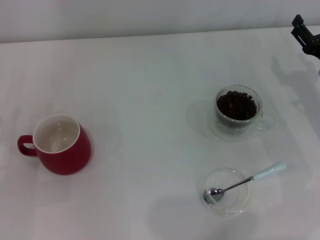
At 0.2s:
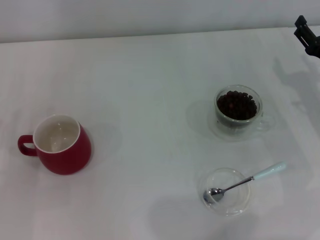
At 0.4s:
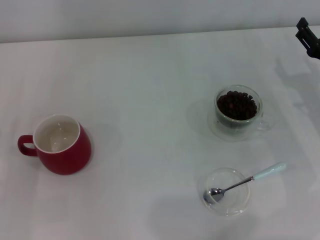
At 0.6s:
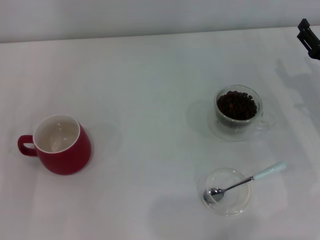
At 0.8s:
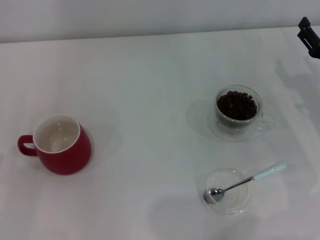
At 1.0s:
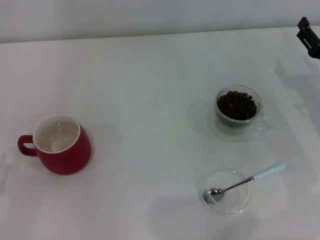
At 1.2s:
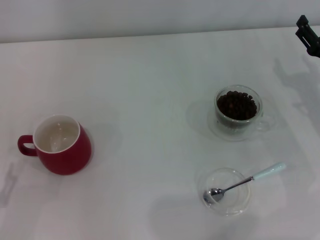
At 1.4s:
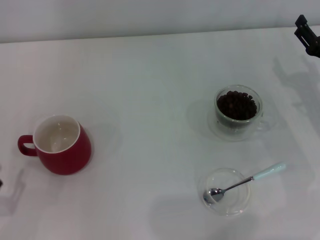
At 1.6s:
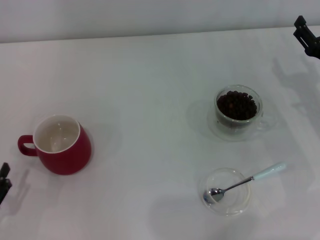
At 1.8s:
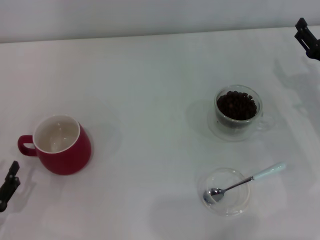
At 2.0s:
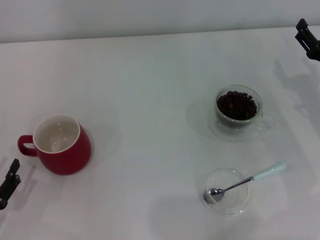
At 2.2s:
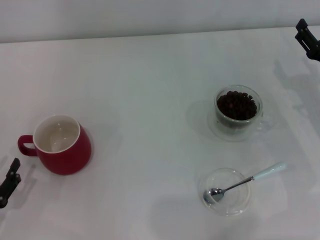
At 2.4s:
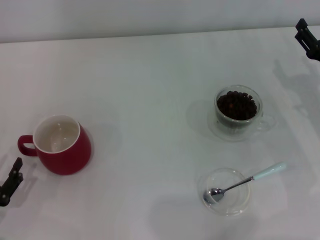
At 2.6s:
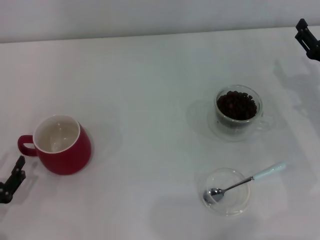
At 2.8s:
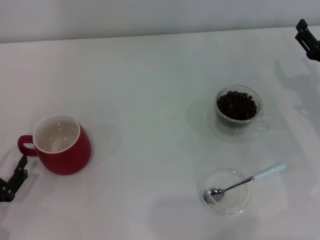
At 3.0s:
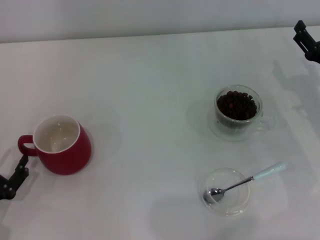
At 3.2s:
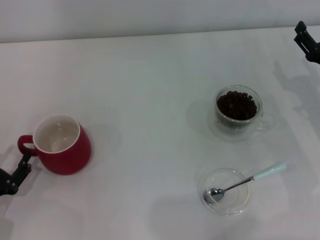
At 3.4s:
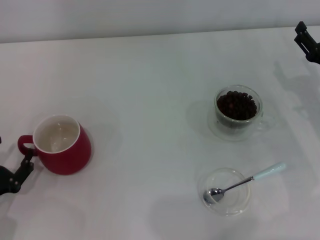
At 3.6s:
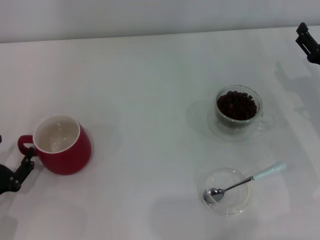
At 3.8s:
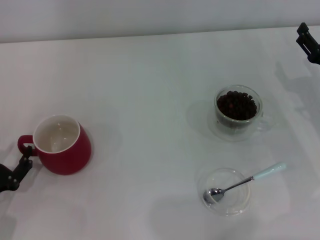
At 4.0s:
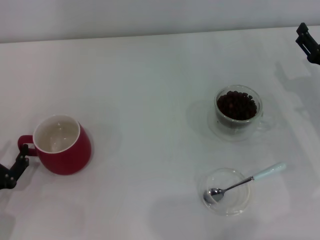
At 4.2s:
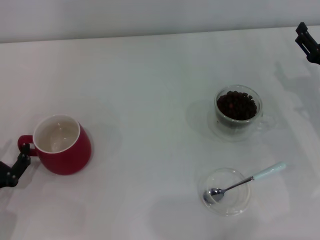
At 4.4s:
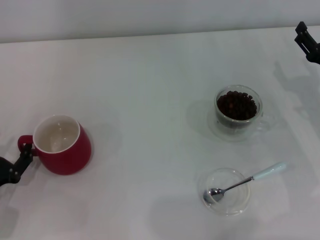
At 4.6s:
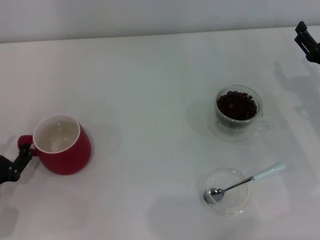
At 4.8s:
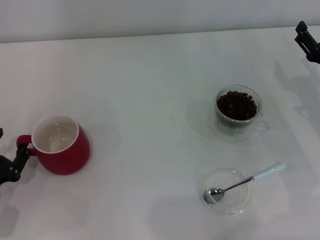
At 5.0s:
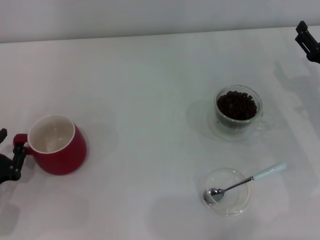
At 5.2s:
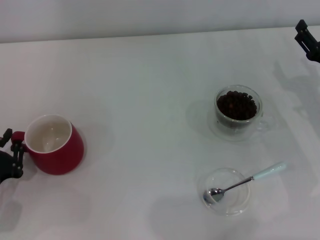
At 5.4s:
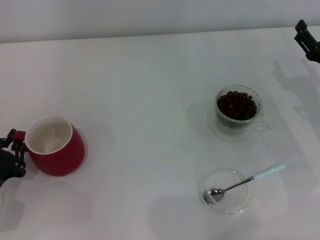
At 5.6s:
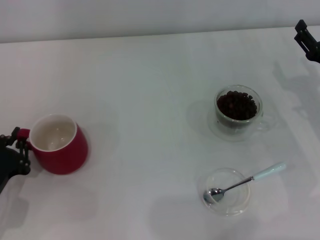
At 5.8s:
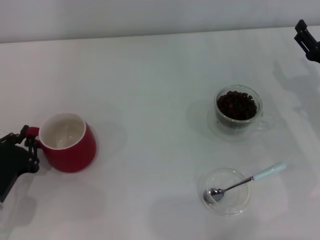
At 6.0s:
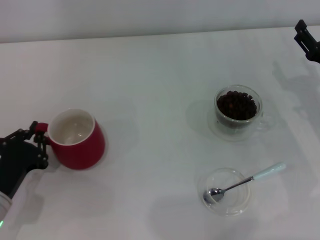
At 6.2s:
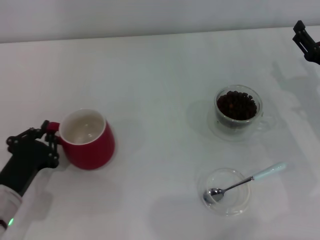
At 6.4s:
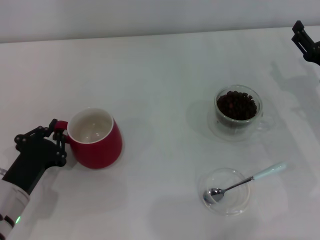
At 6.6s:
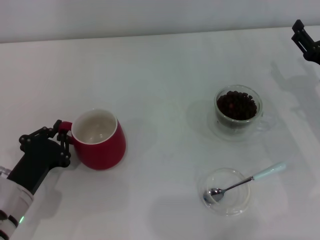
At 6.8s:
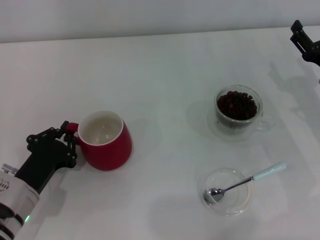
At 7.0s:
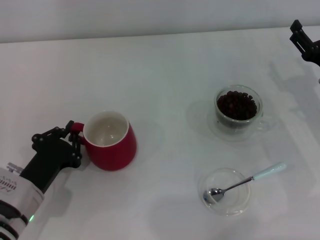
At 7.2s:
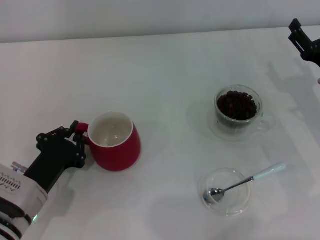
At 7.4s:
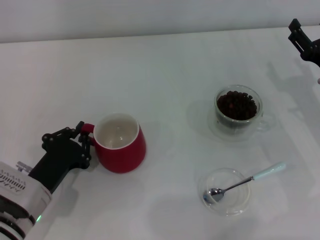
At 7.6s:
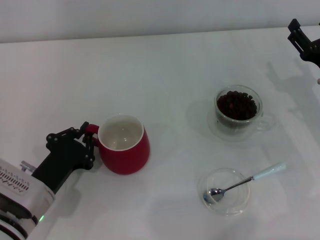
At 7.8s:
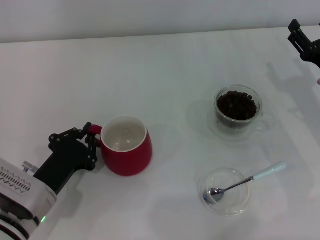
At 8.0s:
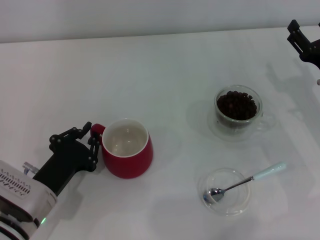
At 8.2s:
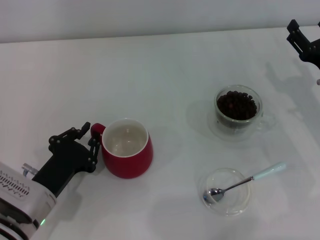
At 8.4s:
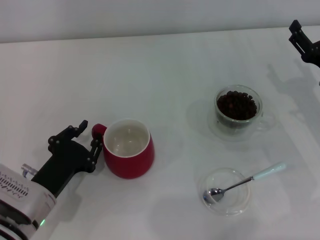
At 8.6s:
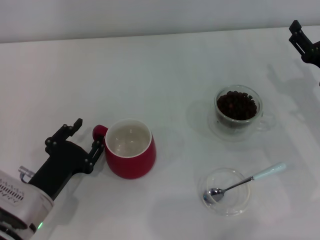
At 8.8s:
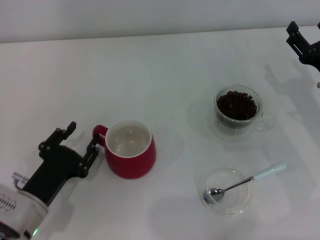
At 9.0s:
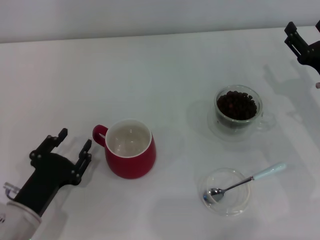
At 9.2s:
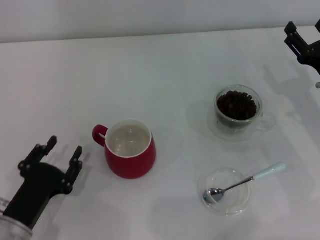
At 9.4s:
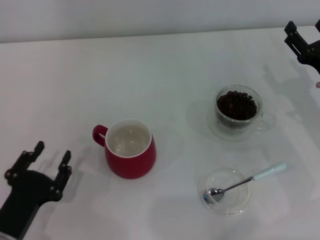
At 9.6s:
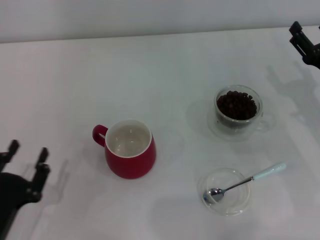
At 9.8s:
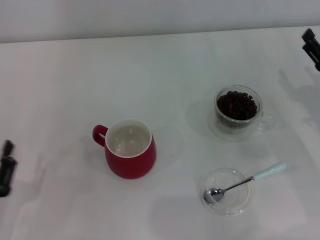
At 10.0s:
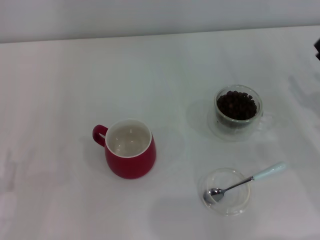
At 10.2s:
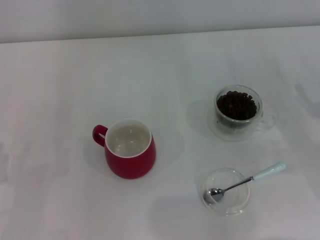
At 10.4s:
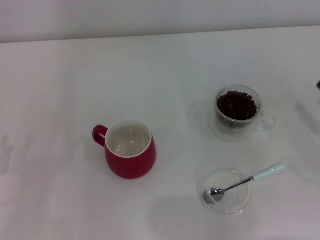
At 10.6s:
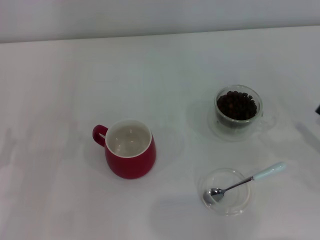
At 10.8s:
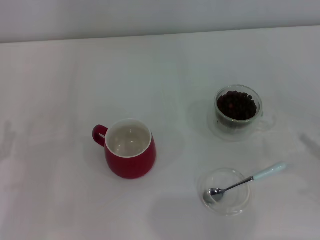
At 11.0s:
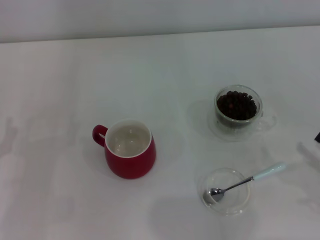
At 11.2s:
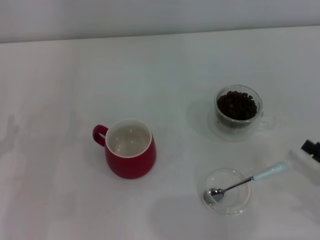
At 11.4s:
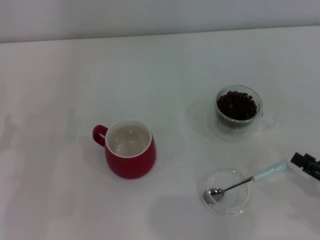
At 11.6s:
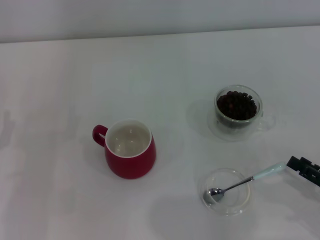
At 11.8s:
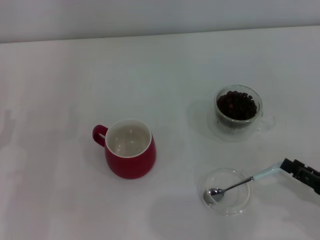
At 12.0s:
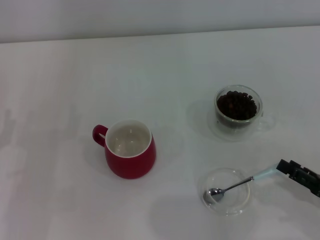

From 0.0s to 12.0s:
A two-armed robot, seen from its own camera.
Task of the whole recording: Use a blue spoon to take out the coffee beans from the glass and pour them into the red cup.
Step, from 0.0s to 9.2s: Move the cup to the center of view with the left gripper.
From 1.6s to 3.0s: There are only small adjustments of the grippers.
From 3.0s to 4.4s: The grippers make only small movements.
From 4.4s to 6.0s: The left gripper closes.
From 6.0s to 7.6s: The left gripper goes some 5 cm to the right.
From 7.6s to 9.0s: The left gripper opens its fingers.
From 9.0s to 10.4s: The right gripper goes roughly 10 cm backward and to the right, while the left gripper shifts roughly 10 cm to the left.
From 10.4s to 12.0s: The right gripper shifts roughly 10 cm backward.

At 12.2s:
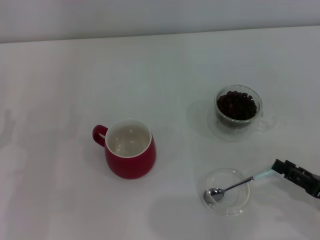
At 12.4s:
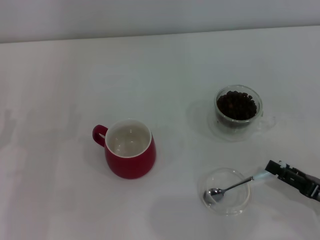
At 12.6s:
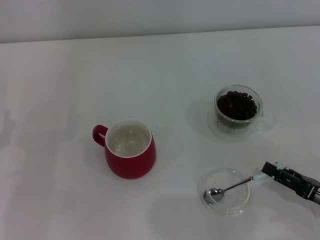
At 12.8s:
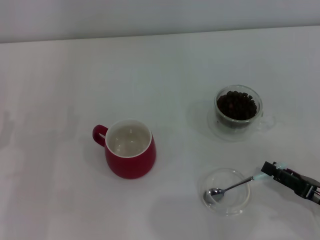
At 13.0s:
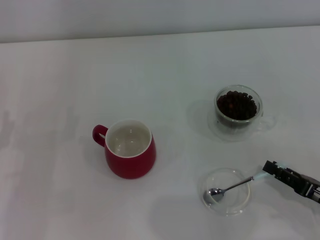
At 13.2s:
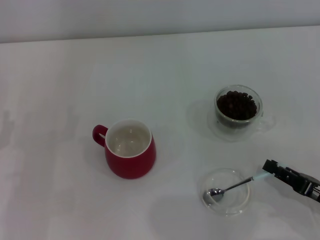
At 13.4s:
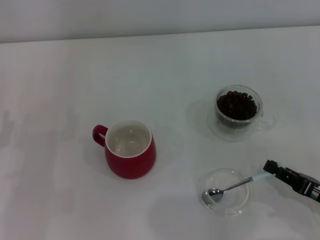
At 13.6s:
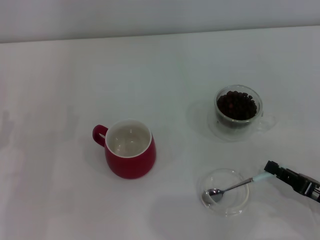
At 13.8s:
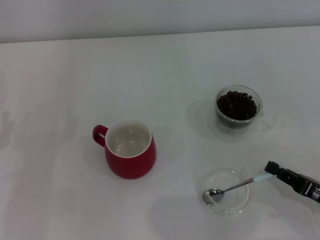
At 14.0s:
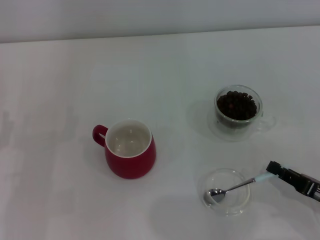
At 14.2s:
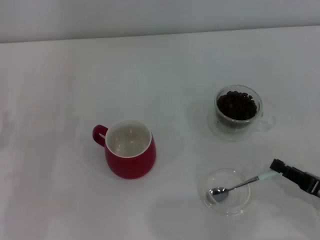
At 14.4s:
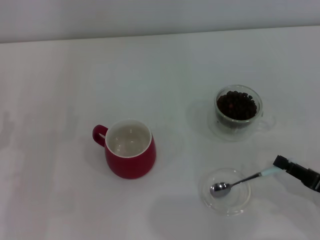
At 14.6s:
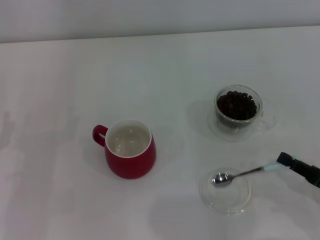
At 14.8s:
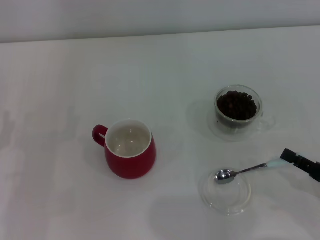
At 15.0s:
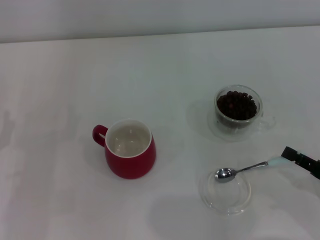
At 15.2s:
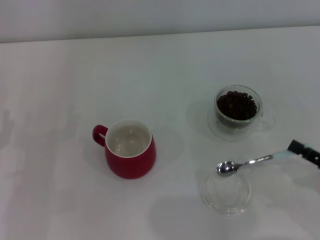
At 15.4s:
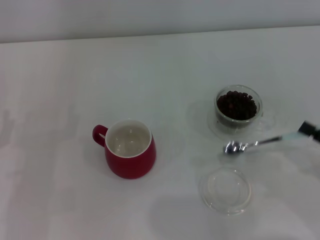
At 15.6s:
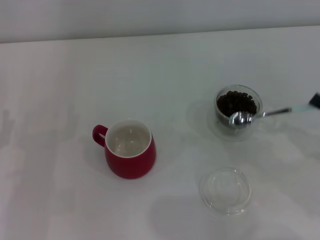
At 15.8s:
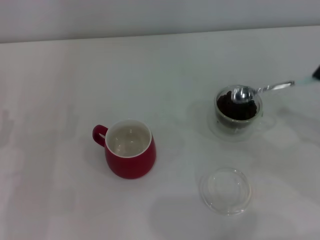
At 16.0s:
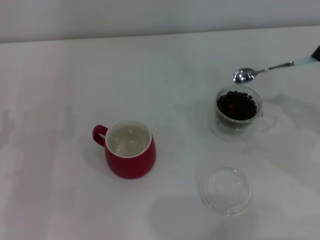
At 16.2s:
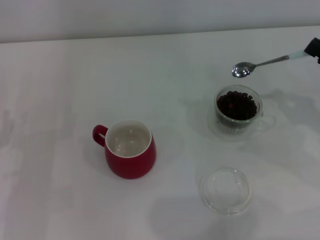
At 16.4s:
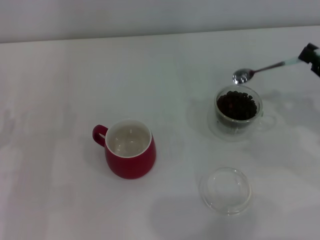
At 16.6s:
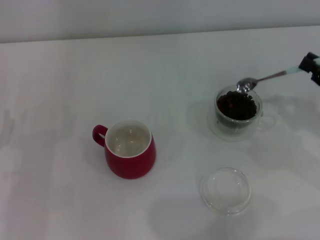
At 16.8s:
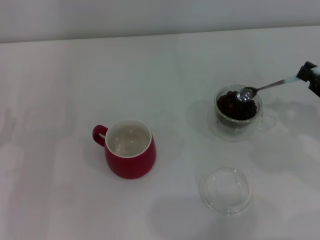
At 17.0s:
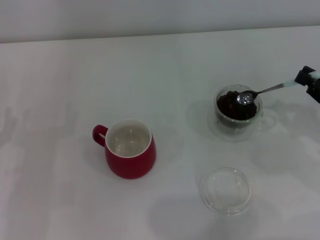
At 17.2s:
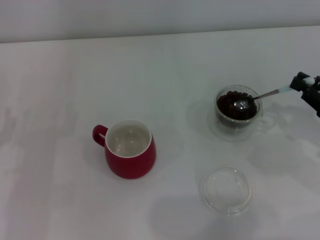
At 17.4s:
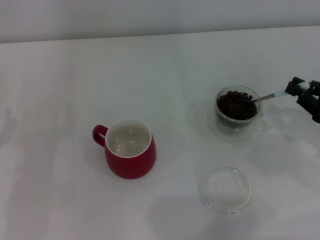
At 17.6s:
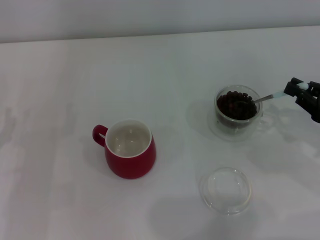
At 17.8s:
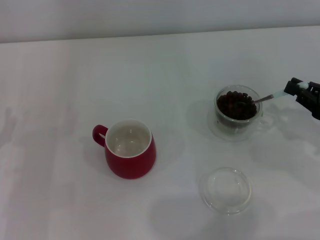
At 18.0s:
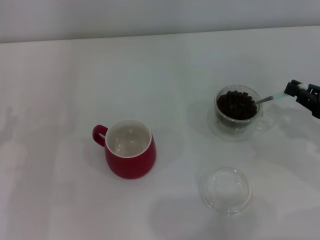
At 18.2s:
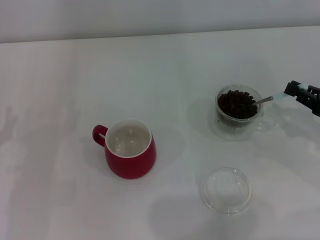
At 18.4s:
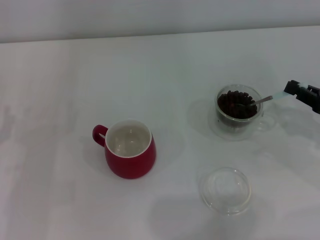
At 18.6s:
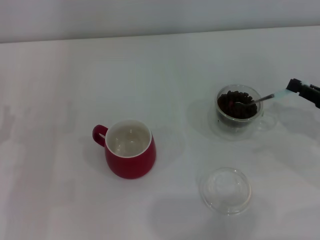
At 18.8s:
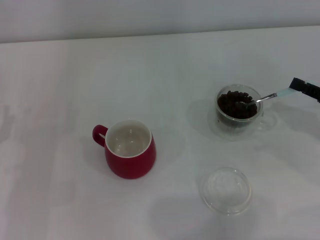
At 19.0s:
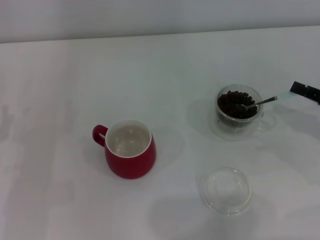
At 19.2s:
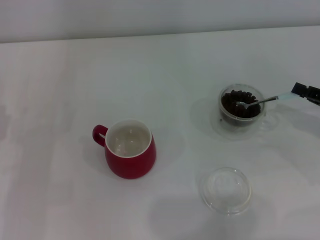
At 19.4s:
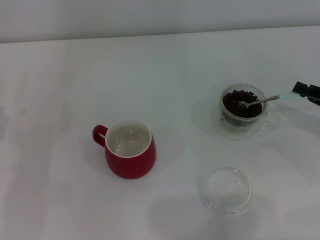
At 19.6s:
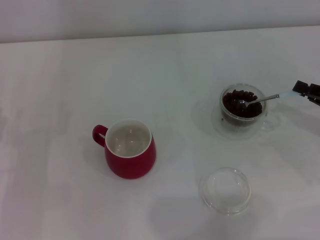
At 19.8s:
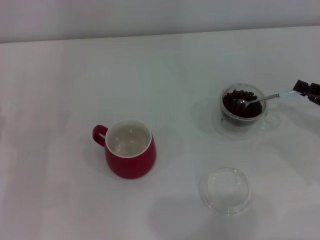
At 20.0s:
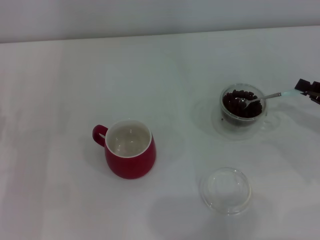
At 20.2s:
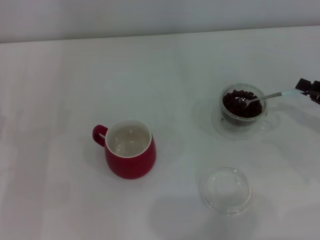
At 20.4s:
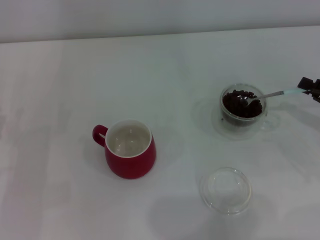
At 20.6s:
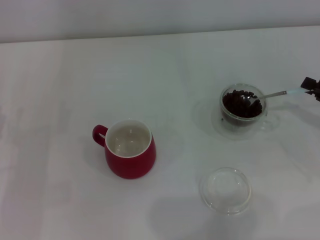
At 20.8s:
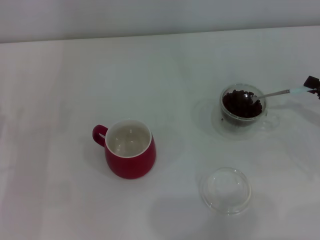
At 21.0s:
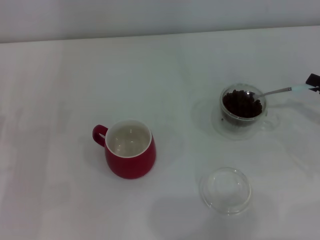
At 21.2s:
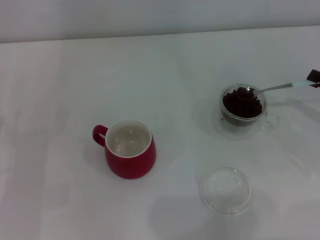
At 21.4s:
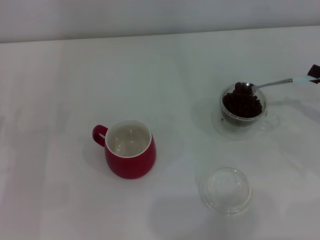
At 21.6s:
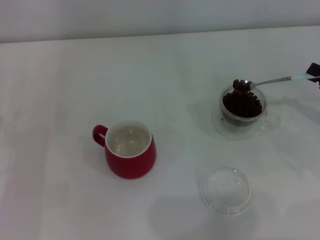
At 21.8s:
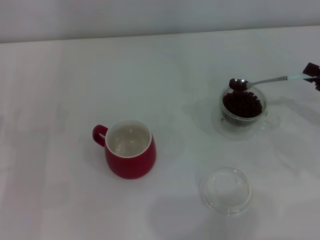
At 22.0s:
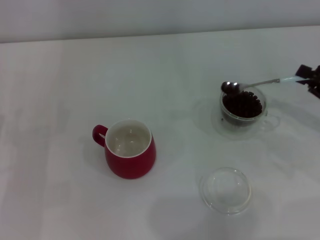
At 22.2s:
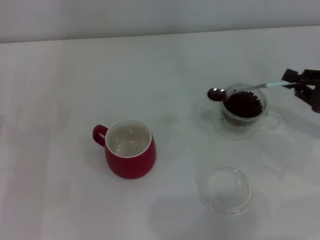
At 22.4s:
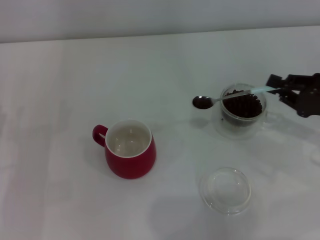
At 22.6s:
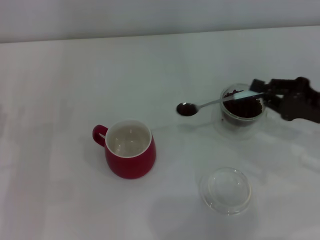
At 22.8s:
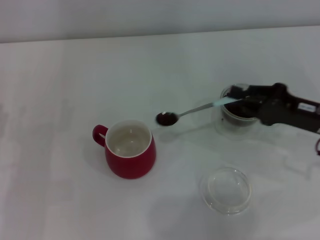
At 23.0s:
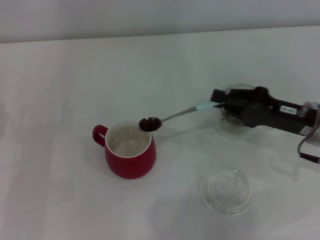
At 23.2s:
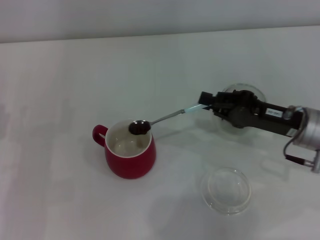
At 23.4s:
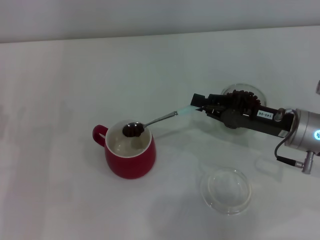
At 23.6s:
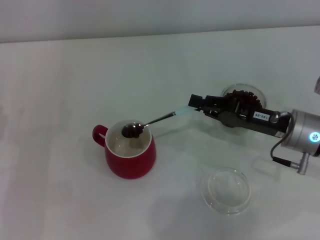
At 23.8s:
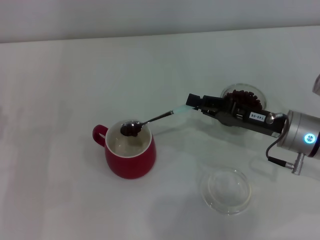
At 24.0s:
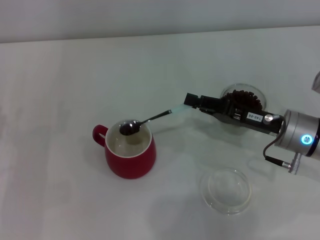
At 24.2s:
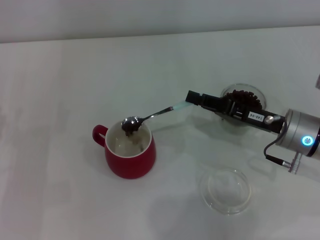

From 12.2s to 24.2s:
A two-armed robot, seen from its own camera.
Task of the whole recording: Use a blue spoon to take out the coffee beans from the glass and pour them into the red cup.
Step, from 12.2s to 15.4s: Pick up the spoon with the right gripper.
From 12.2s to 13.8s: The right gripper closes its fingers.
From 13.8s to 15.2s: The grippers make only small movements.
From 15.2s to 16.6s: The right gripper travels forward and upward by some 10 cm.
From 16.6s to 18.2s: The grippers stay close to where they were, moving slightly.
From 19.8s to 21.2s: The grippers stay close to where they were, moving slightly.
From 21.2s to 22.6s: The right gripper shifts approximately 10 cm to the left.
From 22.6s to 24.2s: The right gripper travels to the left by some 10 cm.
